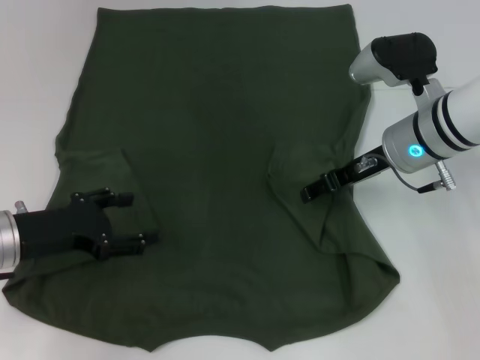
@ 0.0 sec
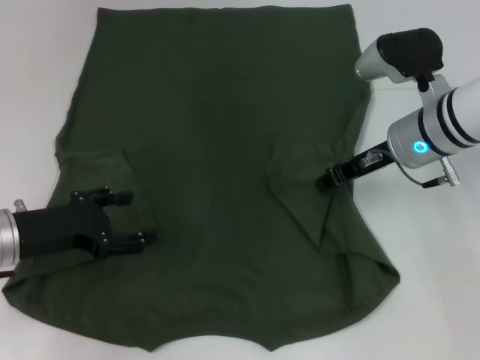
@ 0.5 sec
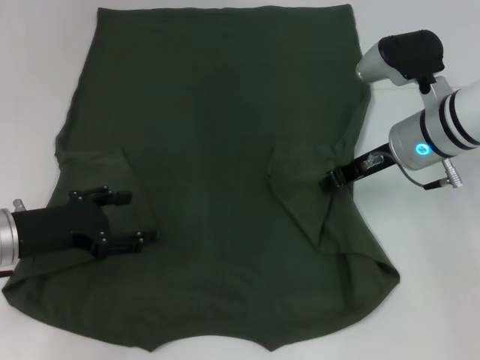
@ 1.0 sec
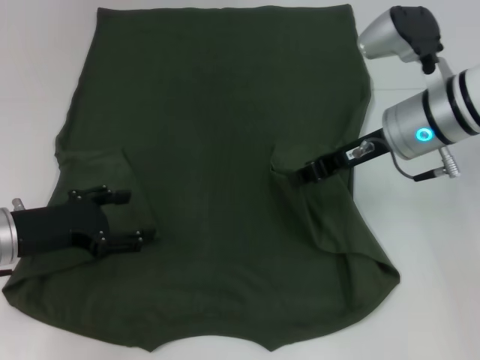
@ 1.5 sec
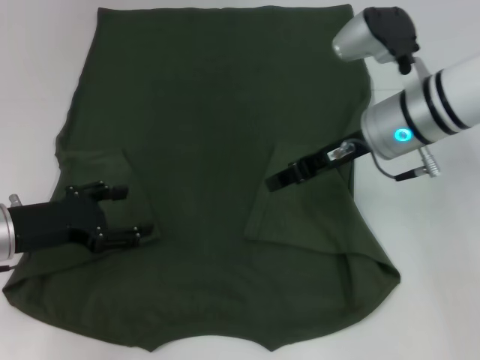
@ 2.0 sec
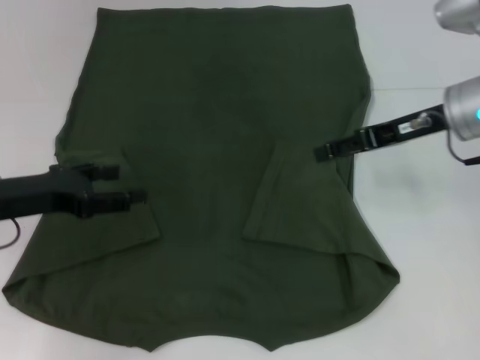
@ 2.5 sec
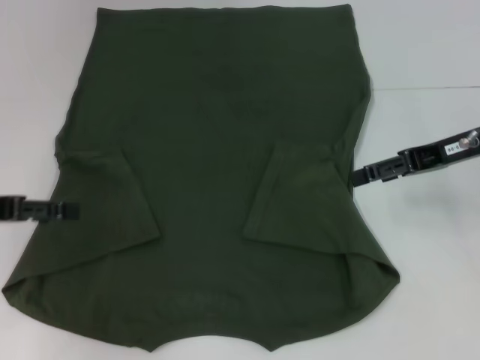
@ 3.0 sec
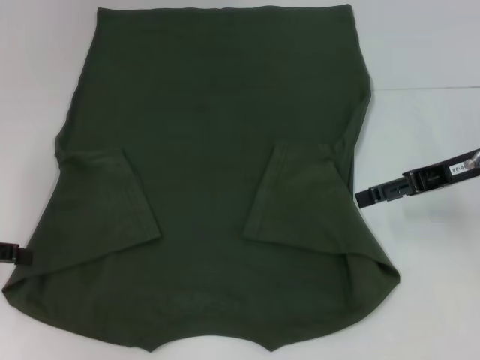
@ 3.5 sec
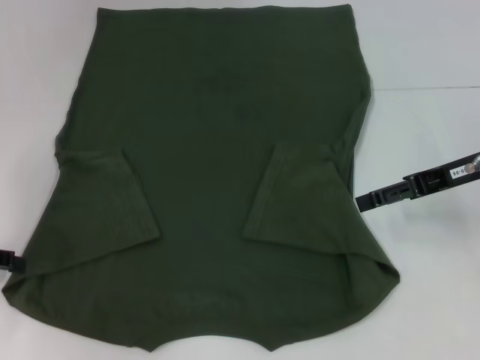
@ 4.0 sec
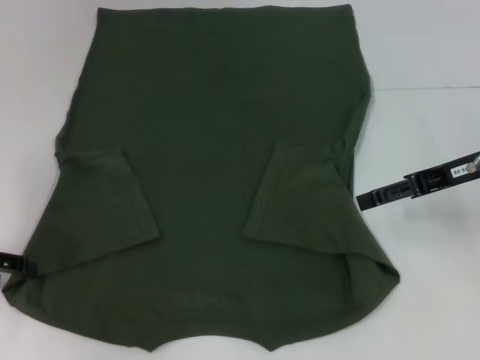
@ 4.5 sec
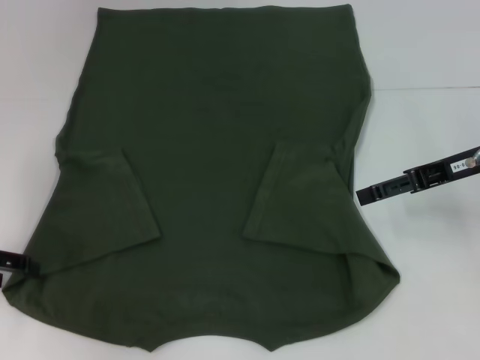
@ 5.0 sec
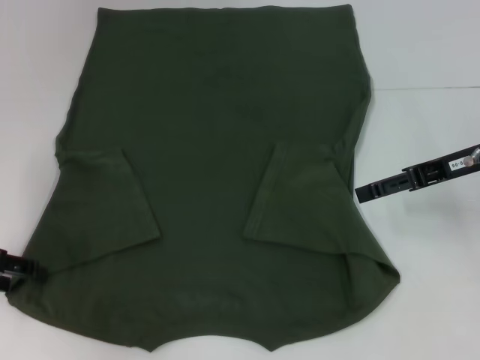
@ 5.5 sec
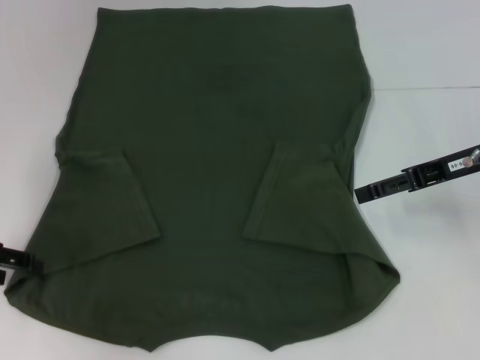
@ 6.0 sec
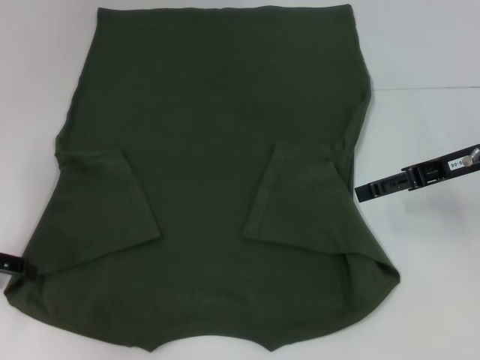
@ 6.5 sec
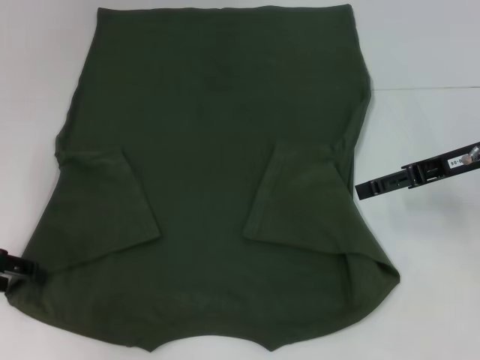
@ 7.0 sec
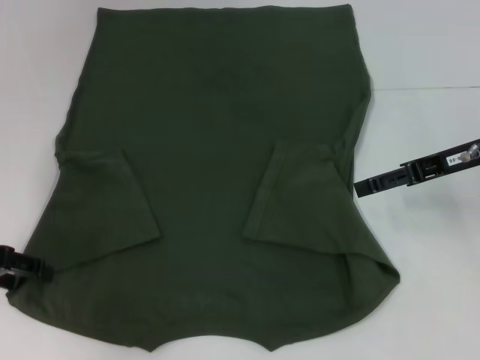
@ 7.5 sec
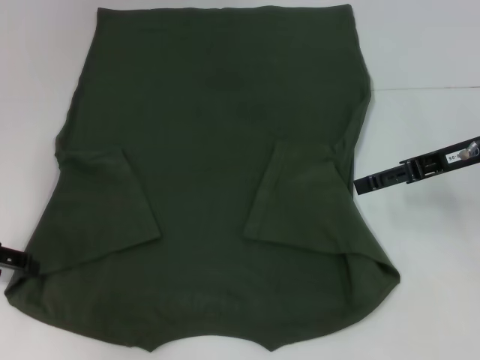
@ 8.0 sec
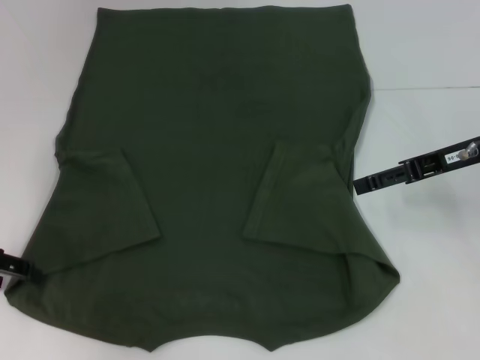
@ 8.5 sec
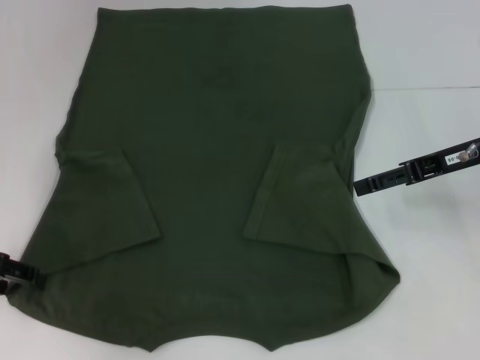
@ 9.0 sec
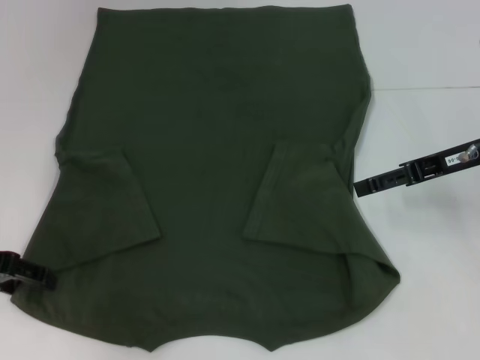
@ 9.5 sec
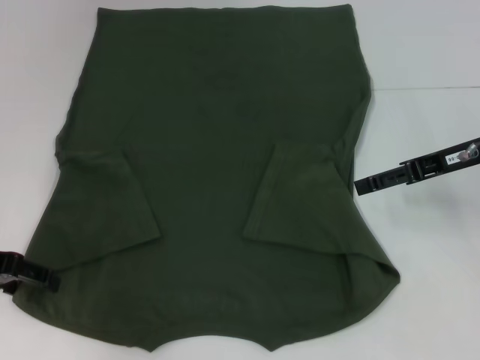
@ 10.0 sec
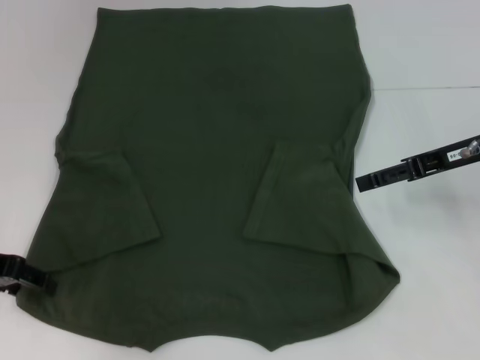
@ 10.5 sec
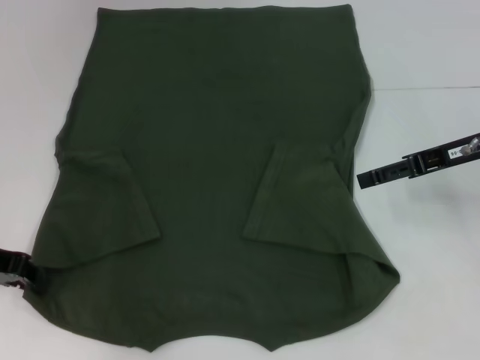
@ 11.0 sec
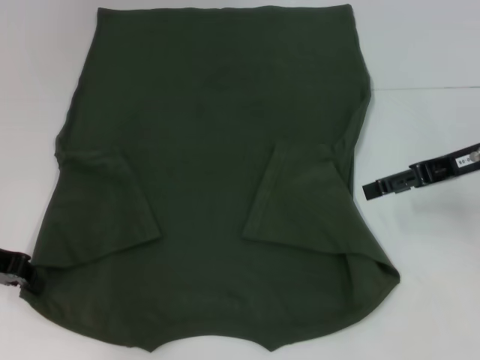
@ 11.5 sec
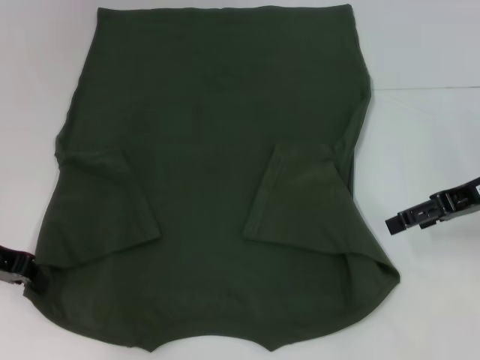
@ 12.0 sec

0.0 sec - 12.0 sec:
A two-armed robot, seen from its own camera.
Step, 0.0 sec - 2.0 sec: Fold the bottom right sleeve with your right hand.
Step, 2.5 sec - 11.0 sec: Grab the bottom left corner with your left hand.
0.0 sec - 2.0 sec: The right gripper closes.
2.0 sec - 4.0 sec: The right gripper goes approximately 10 cm to the right, and opens up. Meanwhile the left gripper is displaced to the left by some 10 cm.
4.0 sec - 6.0 sec: The grippers make only small movements.
6.0 sec - 8.0 sec: The two grippers keep their place.
8.0 sec - 10.0 sec: The grippers make only small movements.
10.0 sec - 12.0 sec: The left gripper closes.

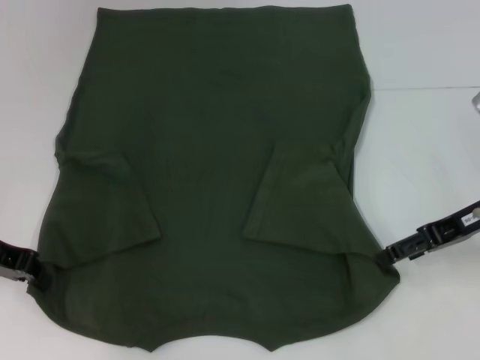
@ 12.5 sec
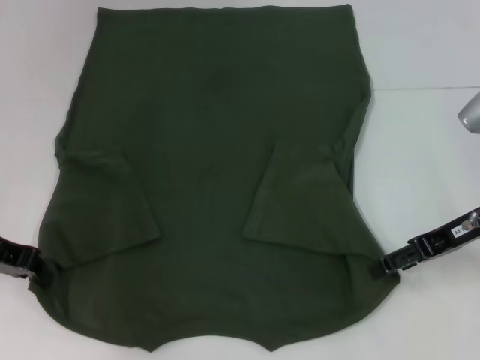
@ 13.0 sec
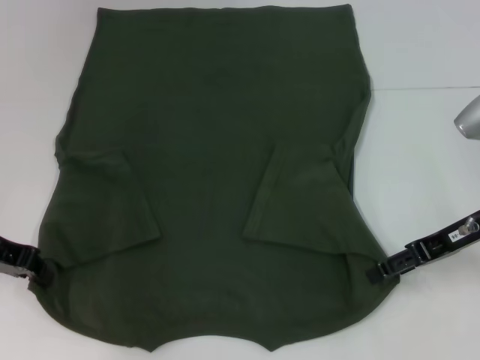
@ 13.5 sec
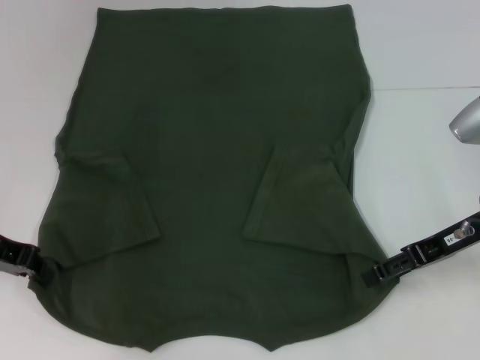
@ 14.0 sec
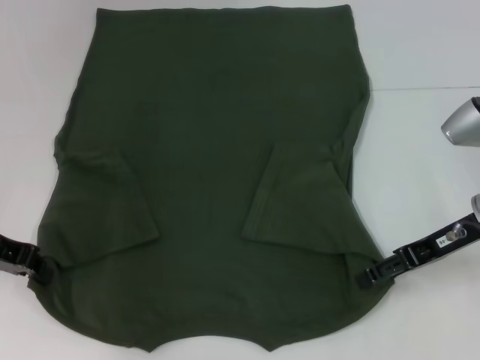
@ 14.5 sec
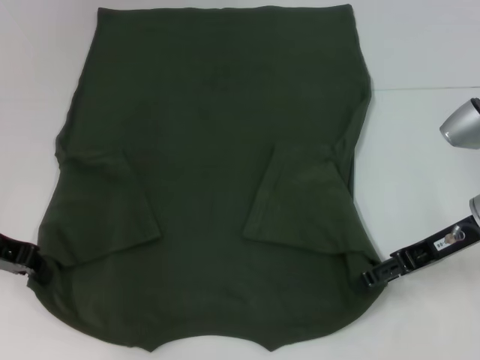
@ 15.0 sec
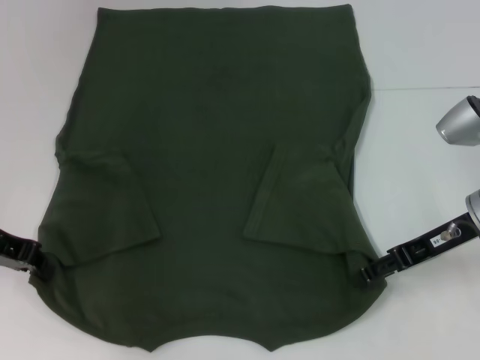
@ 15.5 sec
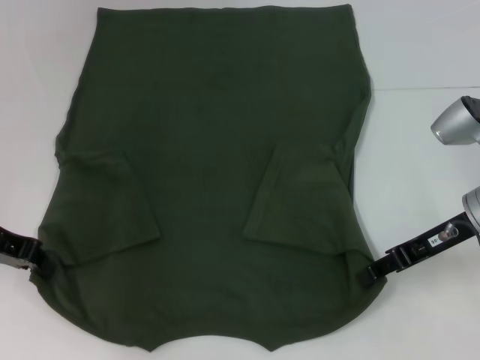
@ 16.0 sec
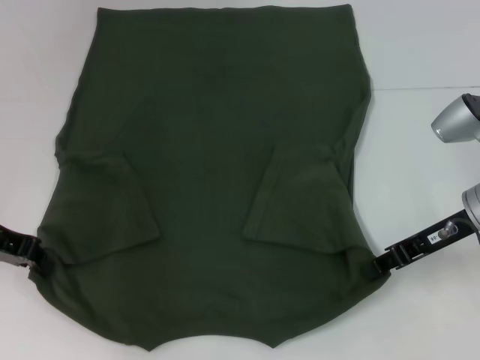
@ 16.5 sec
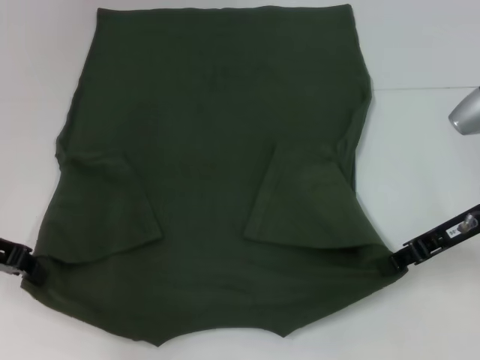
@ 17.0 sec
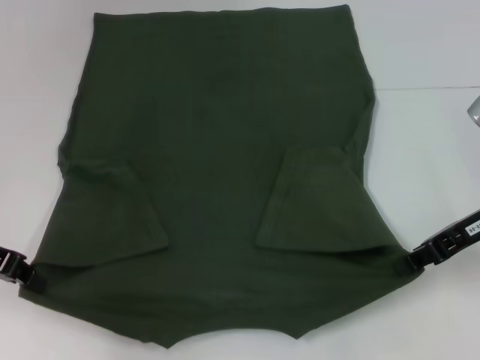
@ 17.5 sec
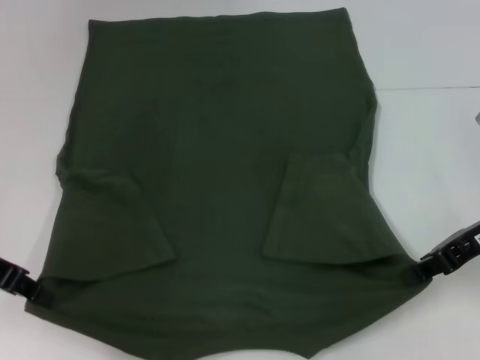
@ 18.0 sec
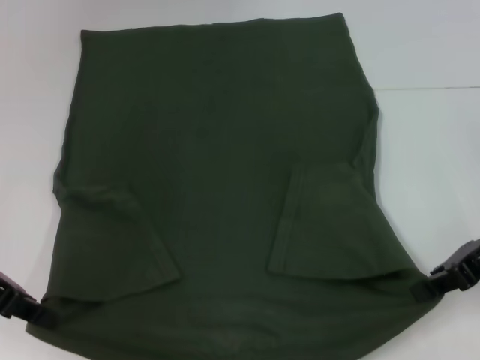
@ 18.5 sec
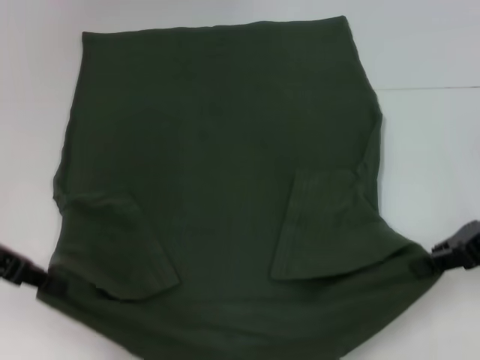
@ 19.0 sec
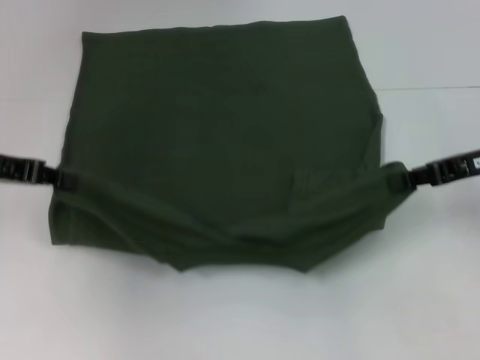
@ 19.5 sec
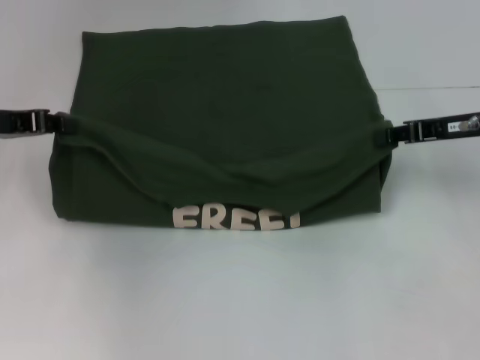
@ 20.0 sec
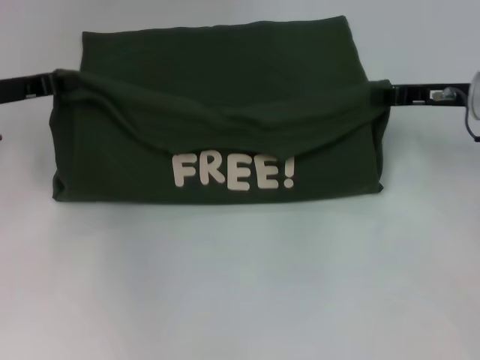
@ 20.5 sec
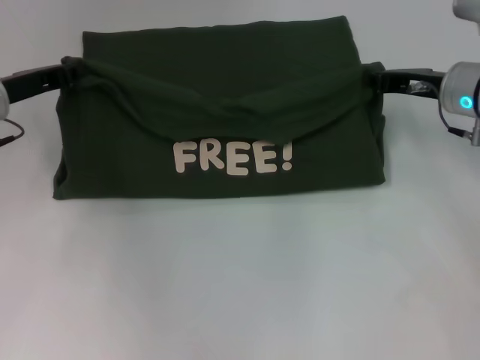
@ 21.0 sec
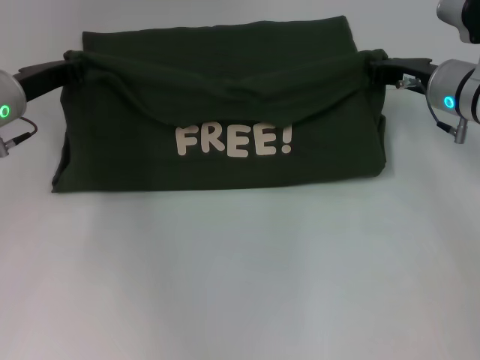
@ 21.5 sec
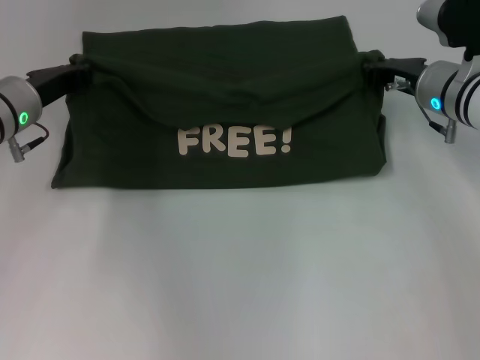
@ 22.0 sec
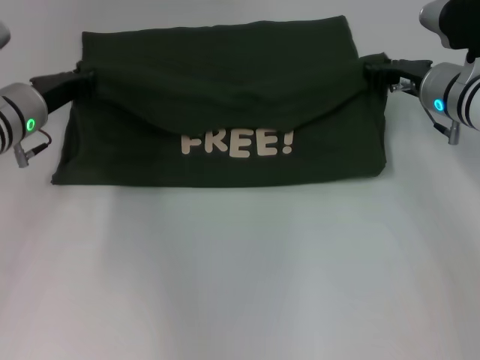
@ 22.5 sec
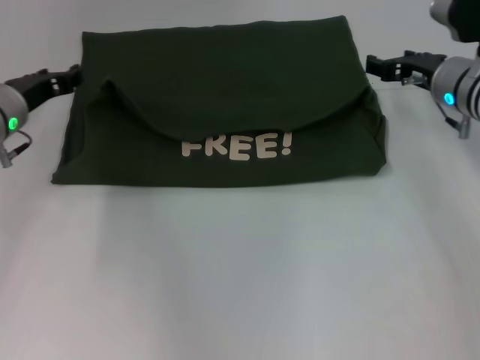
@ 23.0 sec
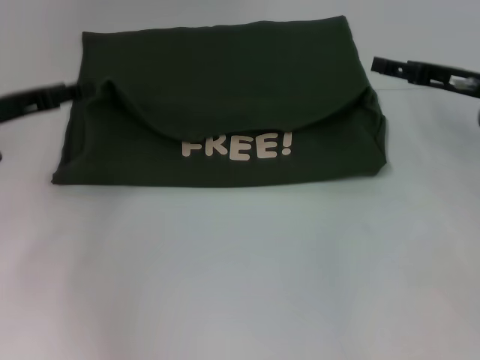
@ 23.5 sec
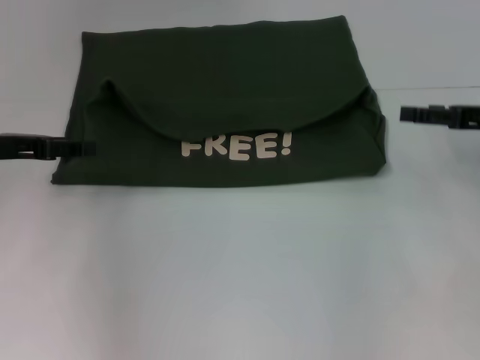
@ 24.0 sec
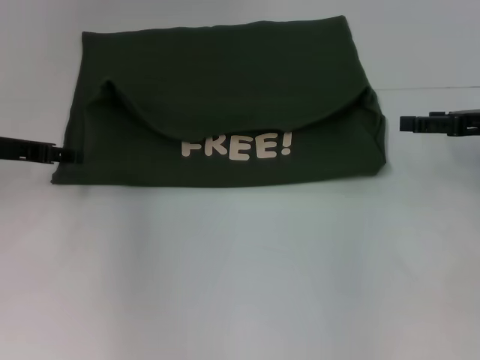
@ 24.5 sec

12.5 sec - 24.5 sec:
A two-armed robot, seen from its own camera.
Step, 12.5 sec - 16.0 sec: Grab the bottom right corner with your right hand.
Step, 16.5 sec - 22.5 sec: Fold the clothes with your left hand.
Step, 16.5 sec - 22.5 sec: Fold the clothes with your right hand.
12.5 sec - 14.5 sec: The grippers make only small movements.
14.5 sec - 16.5 sec: The right gripper closes its fingers.
16.5 sec - 18.5 sec: The right gripper changes place by about 5 cm.
18.5 sec - 20.5 sec: Both grippers travel together forward, roughly 10 cm.
20.5 sec - 22.5 sec: The left gripper shifts some 5 cm to the right. Meanwhile the right gripper changes place by approximately 5 cm.
22.5 sec - 24.5 sec: The right gripper moves to the right and backward, some 15 cm, and opens, while the left gripper is displaced to the left by about 5 cm, and opens its fingers.

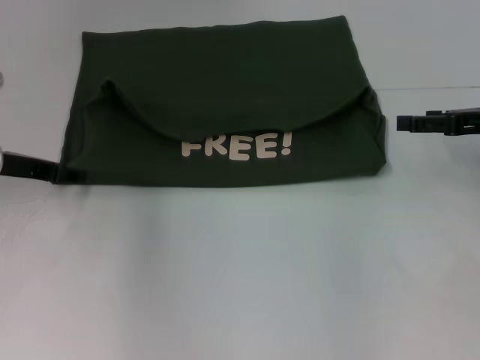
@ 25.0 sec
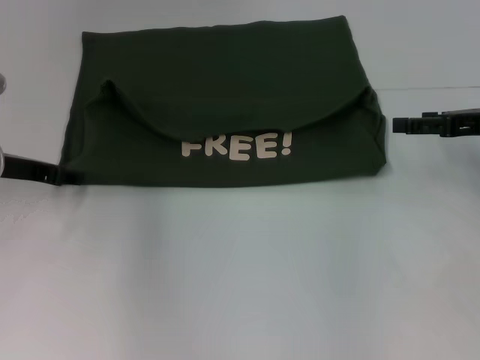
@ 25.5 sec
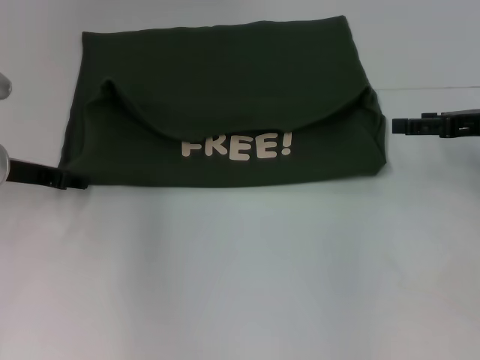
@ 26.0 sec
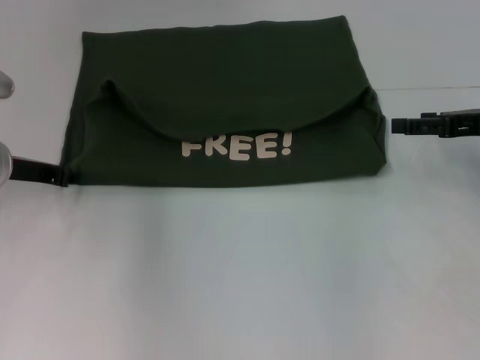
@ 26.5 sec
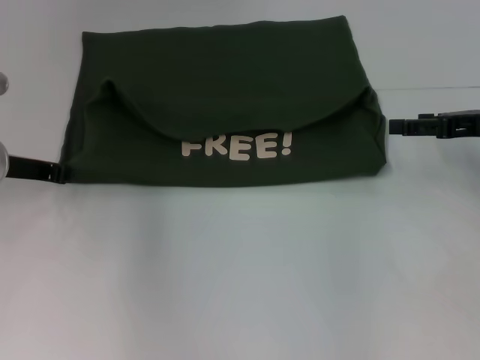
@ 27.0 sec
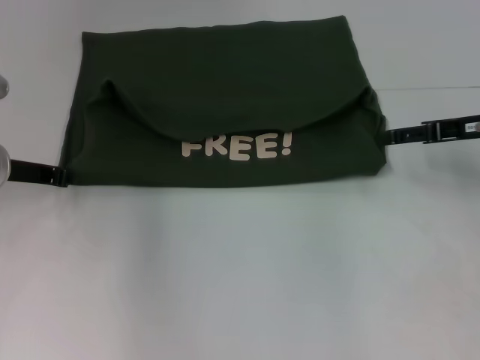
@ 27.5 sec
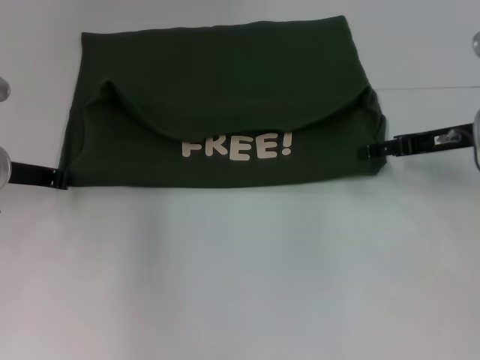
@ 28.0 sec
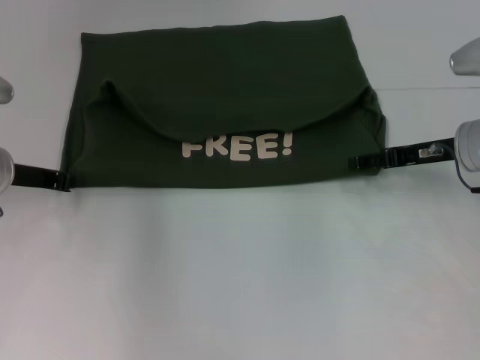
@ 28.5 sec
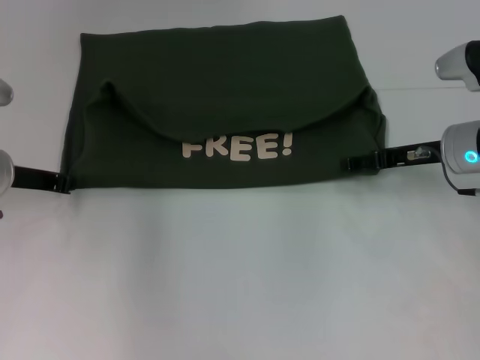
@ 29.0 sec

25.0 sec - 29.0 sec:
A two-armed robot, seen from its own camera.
27.0 sec - 29.0 sec: The right gripper goes about 5 cm to the left.
